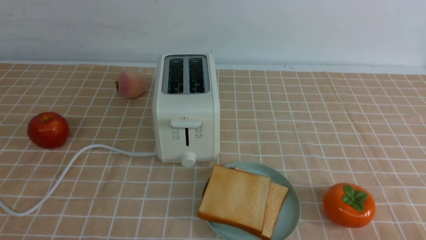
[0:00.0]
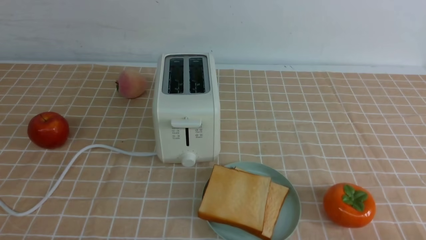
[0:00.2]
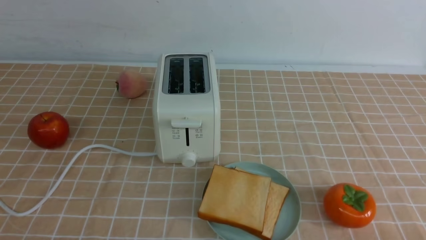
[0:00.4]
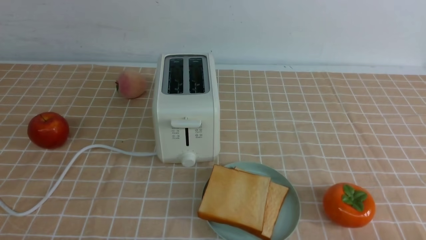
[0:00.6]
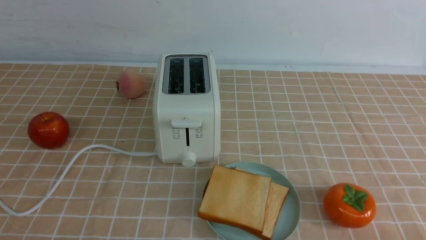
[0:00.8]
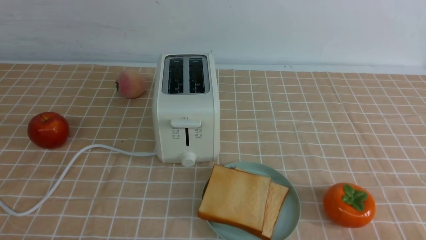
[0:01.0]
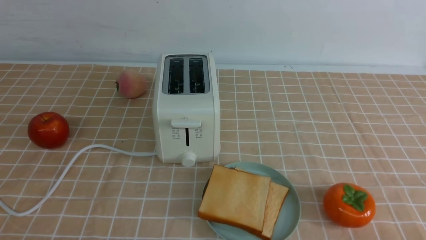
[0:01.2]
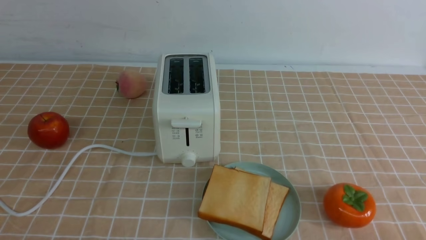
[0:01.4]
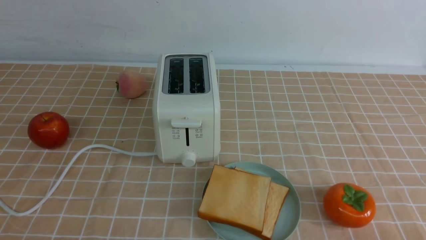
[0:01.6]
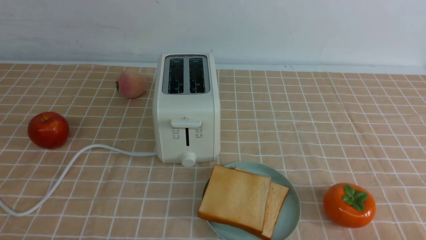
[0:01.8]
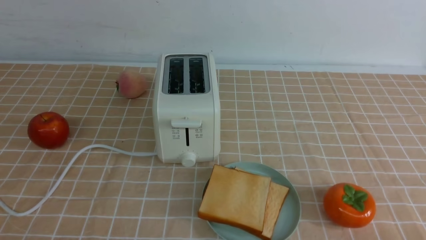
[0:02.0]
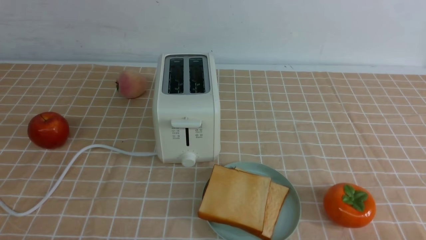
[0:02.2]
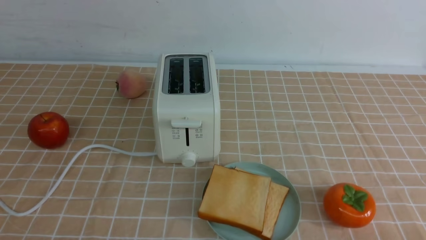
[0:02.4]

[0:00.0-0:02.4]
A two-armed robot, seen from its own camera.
Task of the whole recording: take toasted bread from bread machine on light coffee tablecloth place on plate.
0:01.2 to 0:02.4: Both grippers stay put.

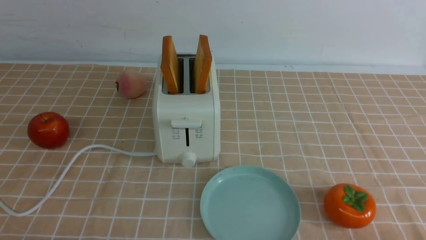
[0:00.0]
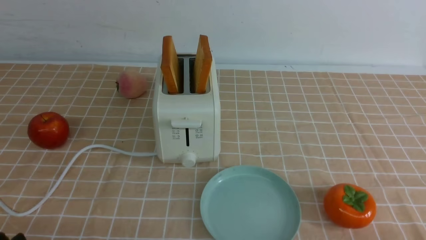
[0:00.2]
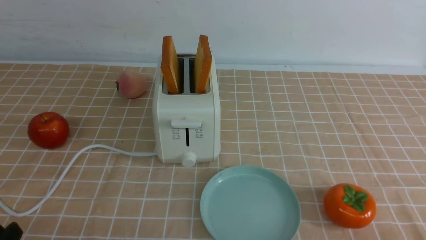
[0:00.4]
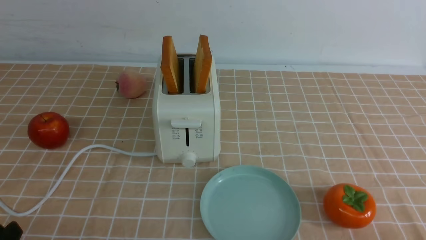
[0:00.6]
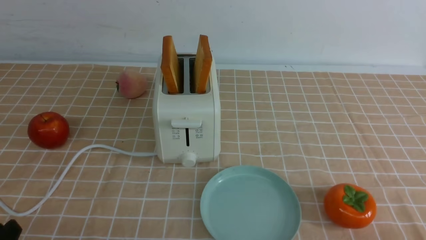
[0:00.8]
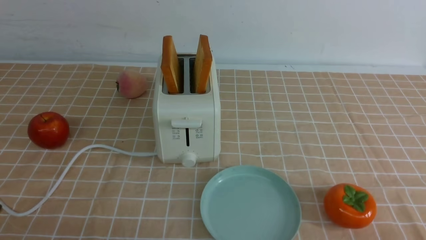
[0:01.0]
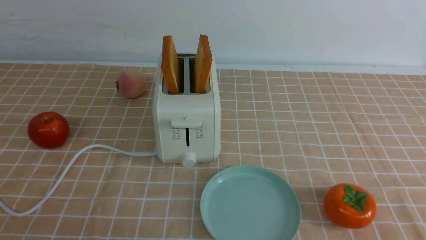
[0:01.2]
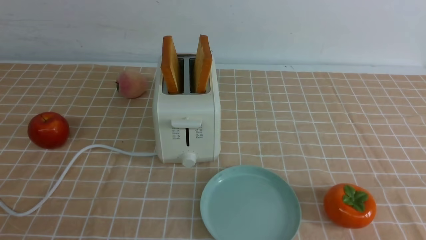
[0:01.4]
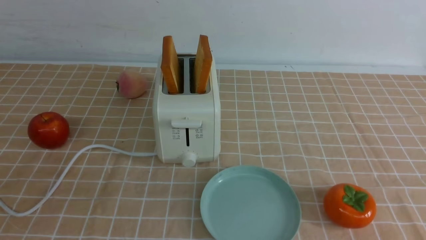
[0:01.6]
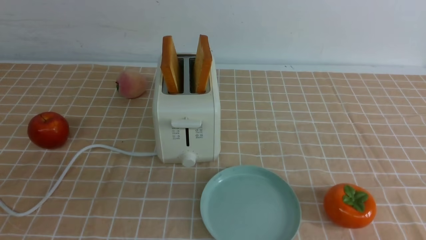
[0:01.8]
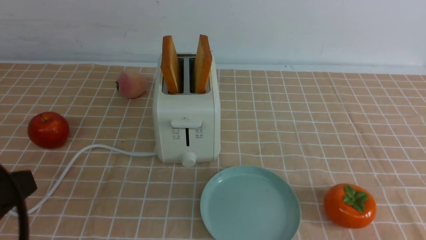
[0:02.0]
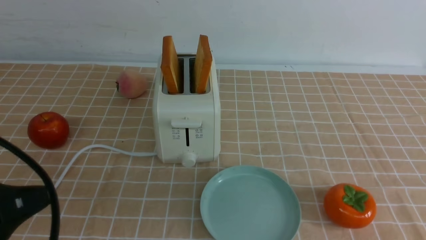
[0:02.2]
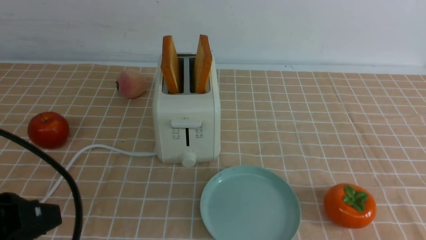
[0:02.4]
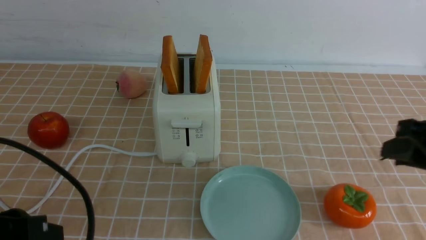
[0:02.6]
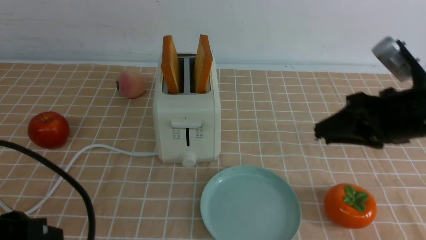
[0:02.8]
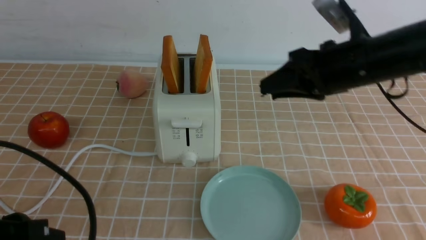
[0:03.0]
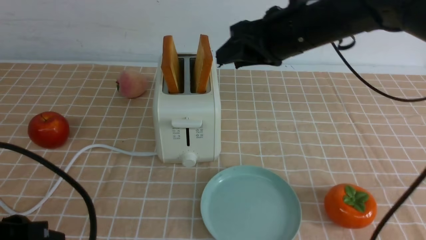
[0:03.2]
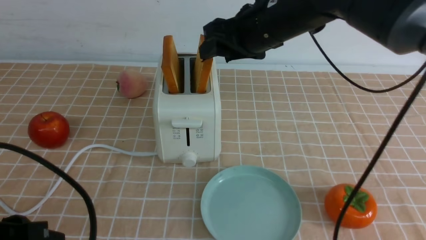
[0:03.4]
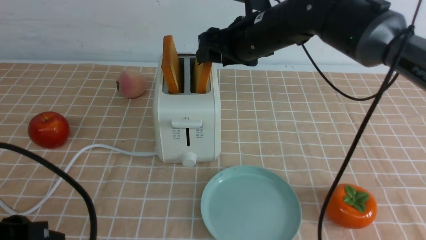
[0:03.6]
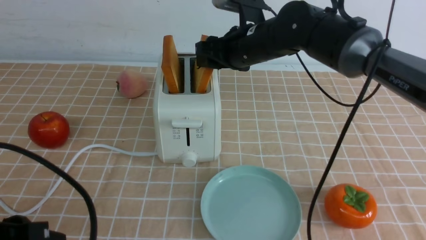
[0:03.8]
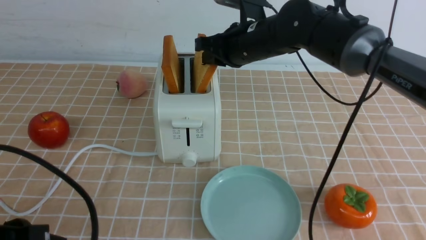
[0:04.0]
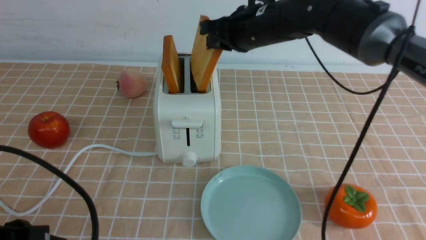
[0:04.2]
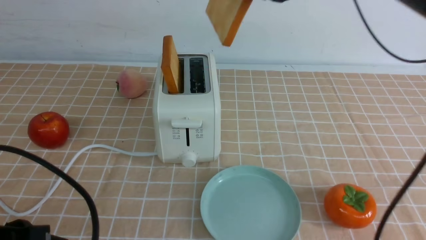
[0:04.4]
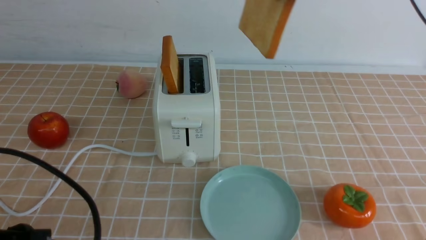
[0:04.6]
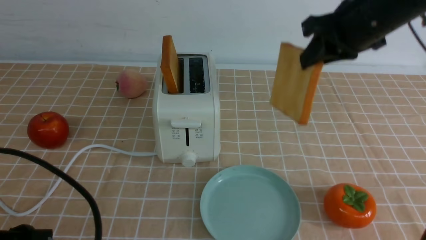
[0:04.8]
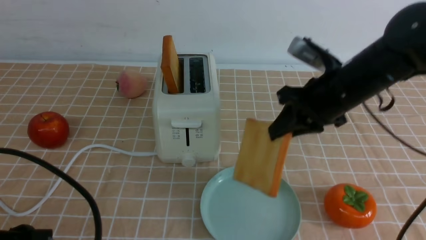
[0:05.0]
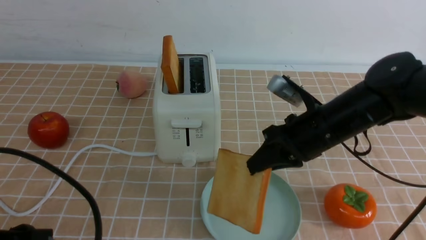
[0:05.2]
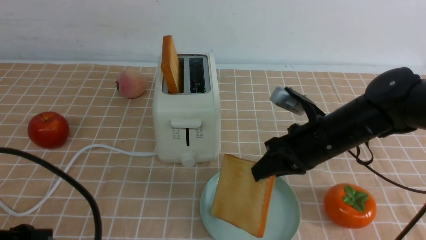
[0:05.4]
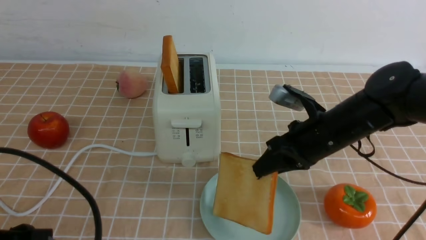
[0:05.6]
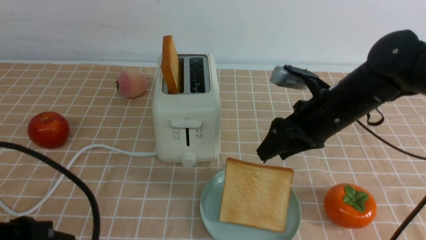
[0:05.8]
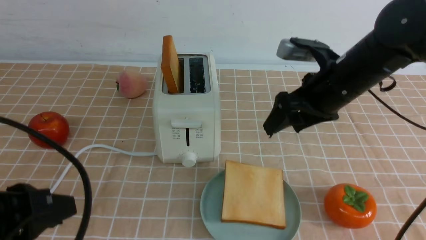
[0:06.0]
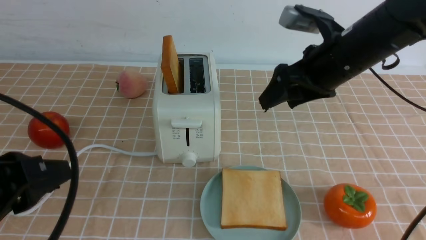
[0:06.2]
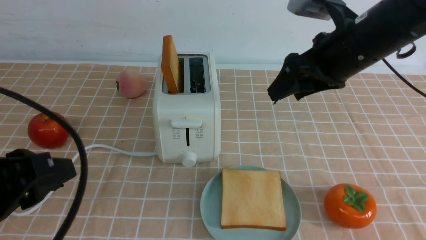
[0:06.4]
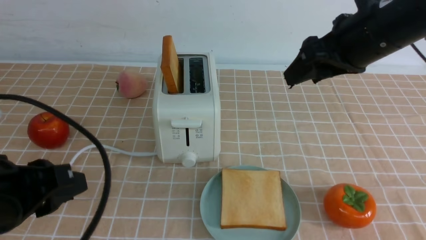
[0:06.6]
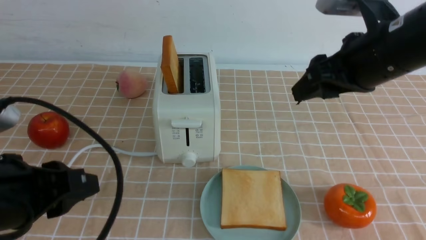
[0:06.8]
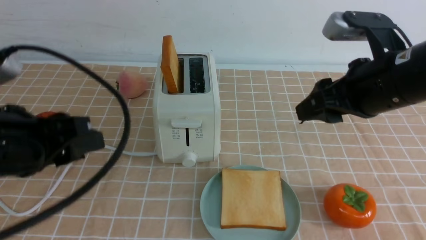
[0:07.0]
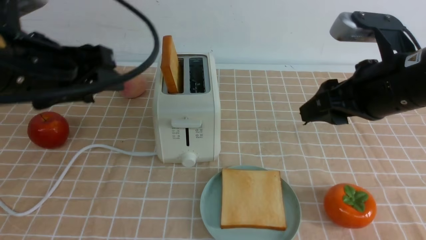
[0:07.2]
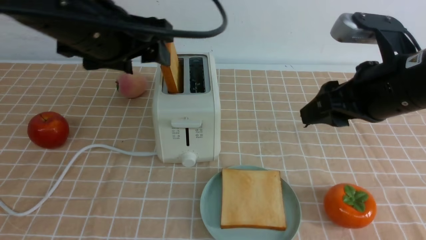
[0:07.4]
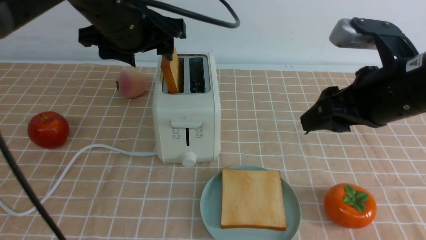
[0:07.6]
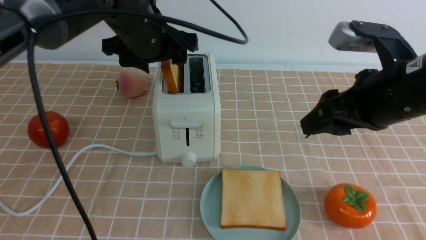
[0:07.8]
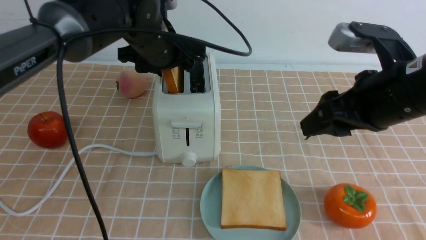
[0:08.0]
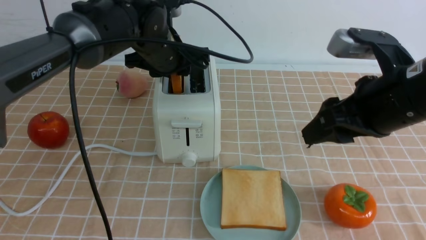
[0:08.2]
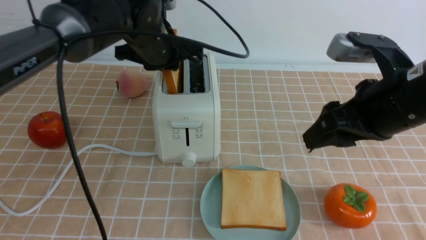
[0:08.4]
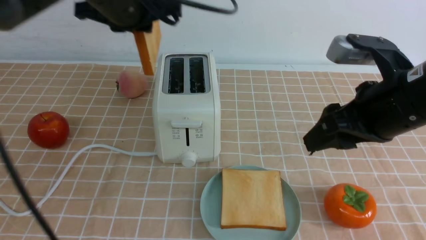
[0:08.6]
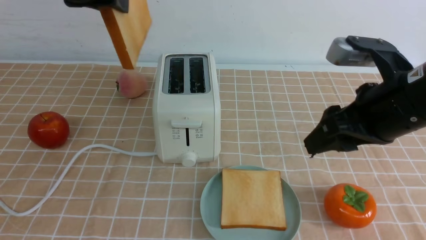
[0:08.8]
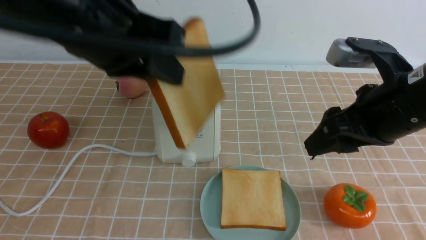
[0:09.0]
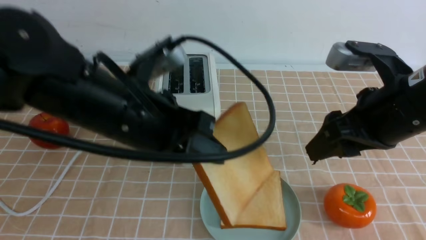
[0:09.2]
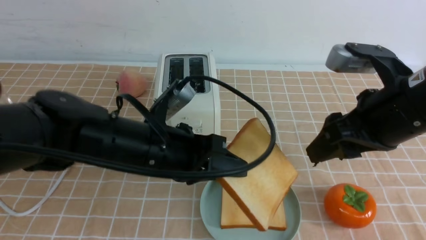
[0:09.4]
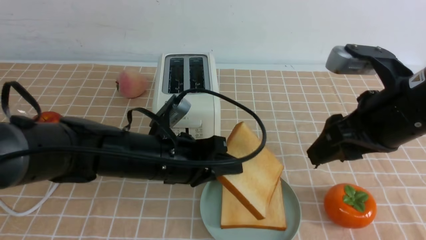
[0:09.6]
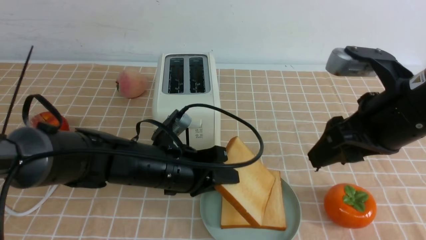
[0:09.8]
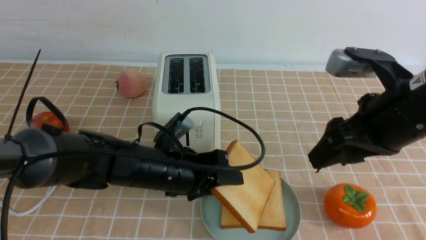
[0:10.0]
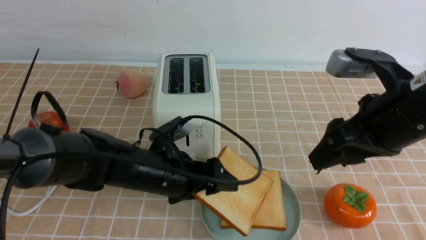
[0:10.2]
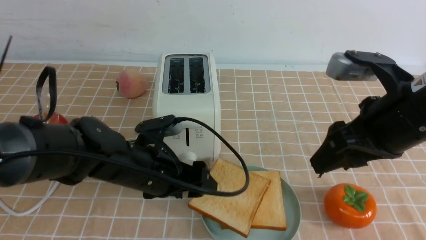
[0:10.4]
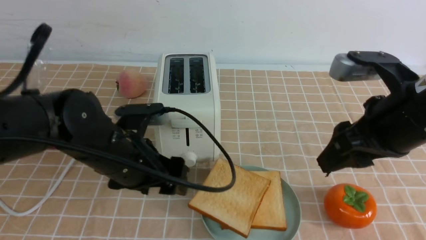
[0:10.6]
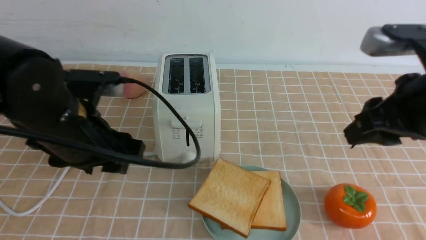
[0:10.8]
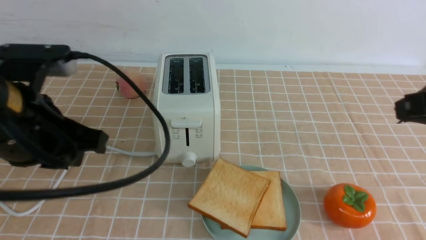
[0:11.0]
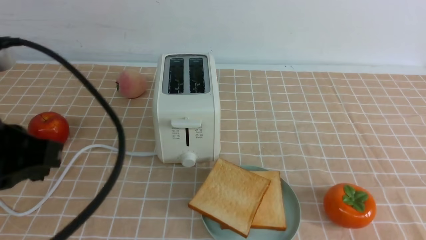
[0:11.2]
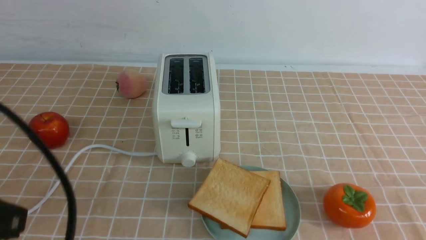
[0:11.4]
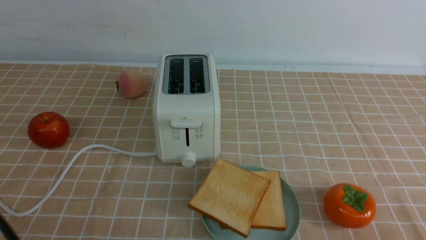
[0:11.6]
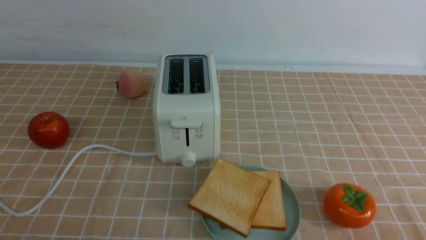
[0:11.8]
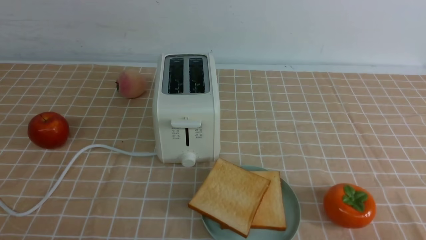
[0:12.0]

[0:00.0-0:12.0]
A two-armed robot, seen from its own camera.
Task of the whole recording: take toasted bread from bread machine on light coffee tablecloth place on plate.
Step, 0:00.0 to 0:04.0: use the right arm to take out a slice of bread.
Step, 0:04.4 to 0:05.8: use the right arm to put a slice of bread into the plate.
Step, 0:06.0 to 0:08.4: use the left arm to take out a slice of bread.
Step, 0:08.6 to 0:10.6: use the left arm to put a slice of bread into the empty plate.
0:01.6 to 0:03.0: The left gripper is displaced forward by some 5 cm; the right gripper moves forward and to the left, approximately 30 cm.
0:03.0 to 0:04.4: The right gripper heads forward and upward, covering some 10 cm, and closes its fingers.
0:04.4 to 0:06.0: The right gripper shifts about 10 cm downward, and opens.
0:06.0 to 0:07.6: The right gripper moves backward, roughly 10 cm; the left gripper shifts approximately 25 cm forward and to the right, and opens its fingers.
0:07.6 to 0:09.0: The left gripper travels backward by approximately 10 cm, and closes its fingers.
0:09.0 to 0:10.4: The left gripper heads downward, covering about 20 cm, and opens its fingers.
0:10.4 to 0:12.0: The left gripper is displaced backward, upward and to the left by about 30 cm, and closes. Meanwhile the right gripper goes some 25 cm backward, downward and to the right, and closes up.

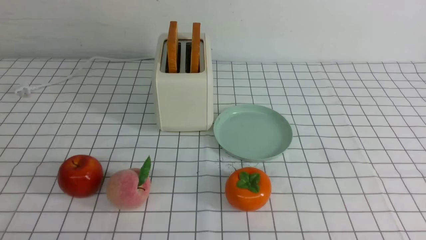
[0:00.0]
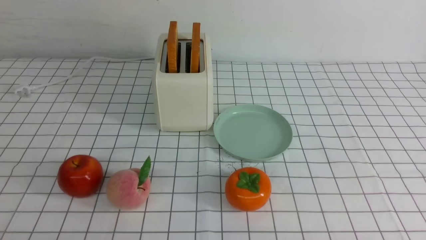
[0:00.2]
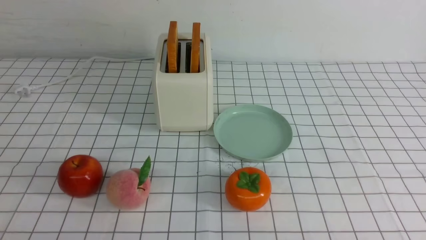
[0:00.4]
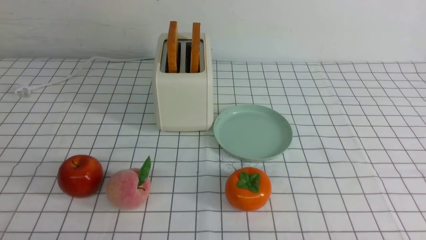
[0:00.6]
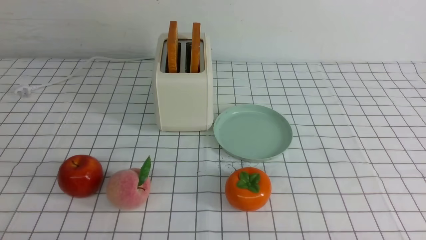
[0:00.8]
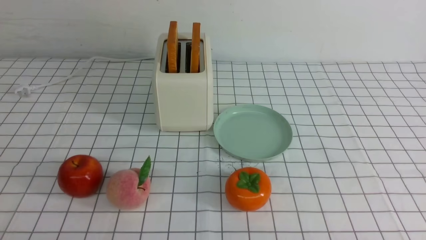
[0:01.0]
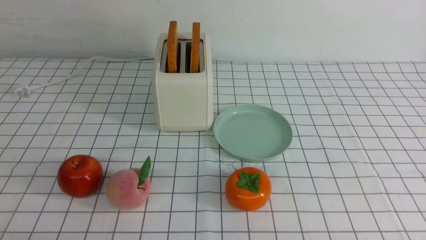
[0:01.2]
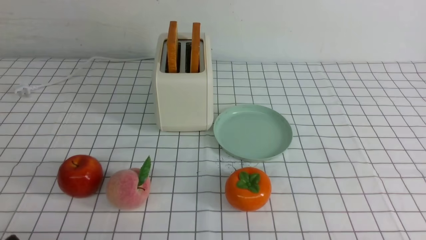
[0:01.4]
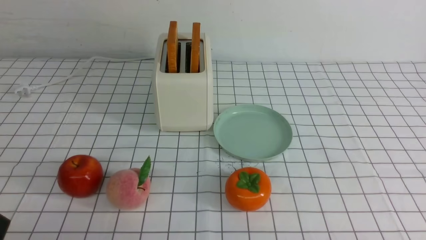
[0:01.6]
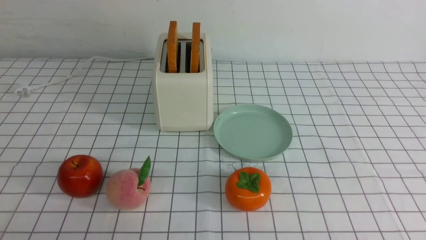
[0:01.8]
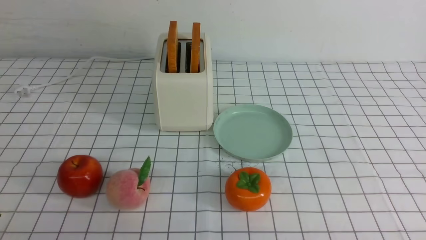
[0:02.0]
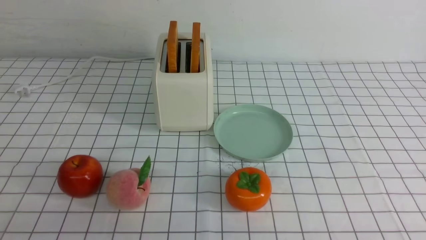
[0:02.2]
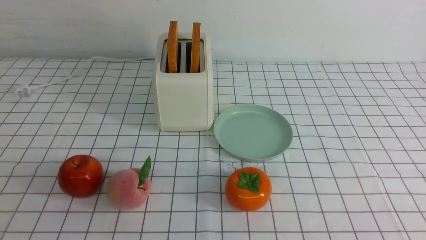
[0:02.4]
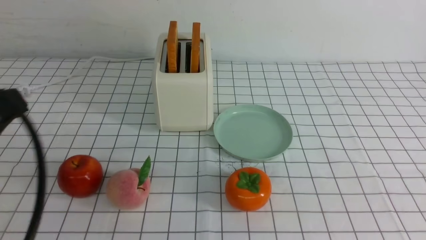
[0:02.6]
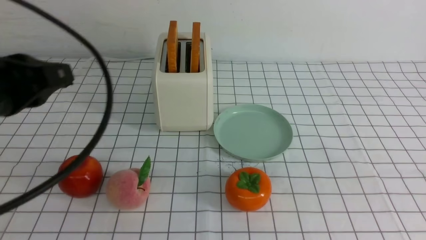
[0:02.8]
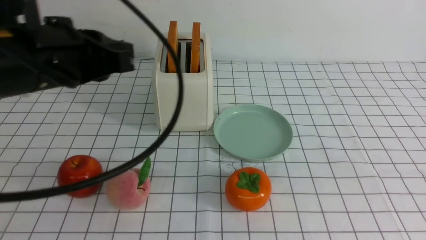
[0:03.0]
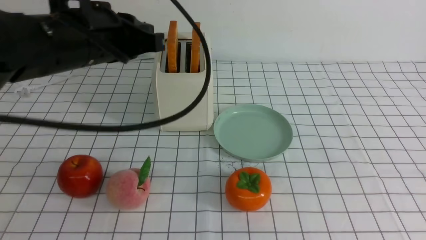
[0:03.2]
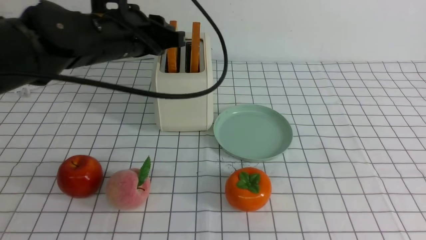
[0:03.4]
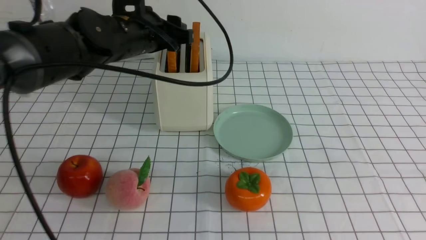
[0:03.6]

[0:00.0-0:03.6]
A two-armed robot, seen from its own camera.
Task of the whole recording: take toasted bread from bread machine on white checkered table place on plate.
0:01.8 to 0:03.6: The right gripper shifts about 30 cm upward, and closes, while the left gripper moves forward, about 35 cm, and closes and opens again.
